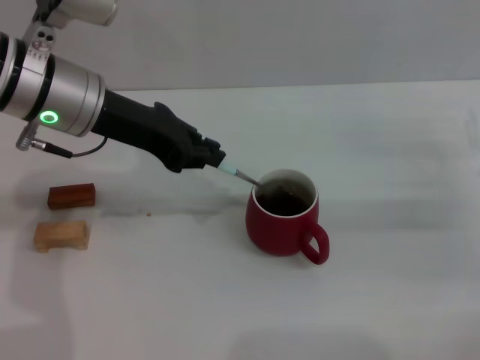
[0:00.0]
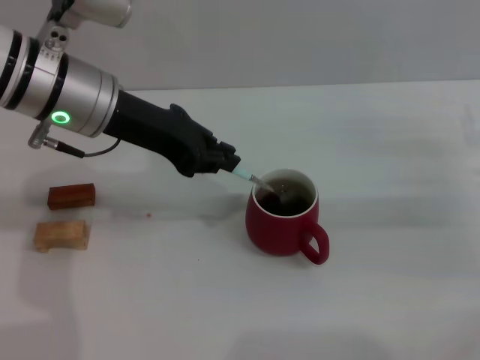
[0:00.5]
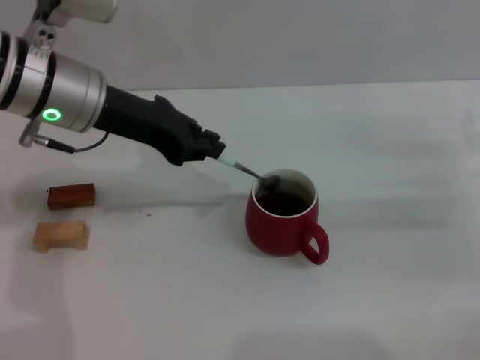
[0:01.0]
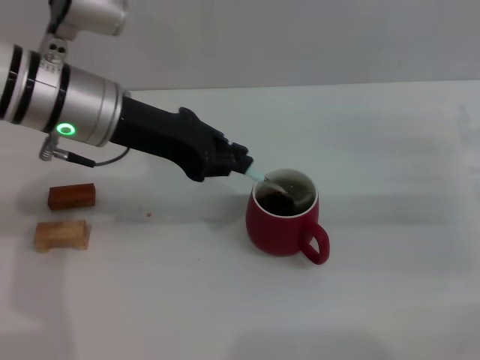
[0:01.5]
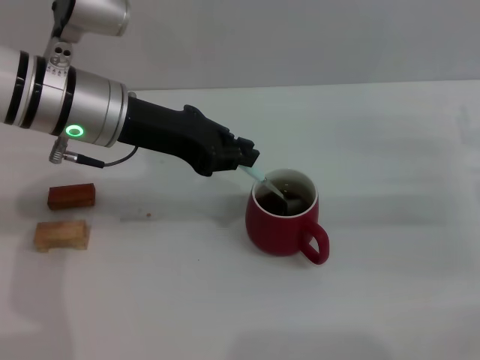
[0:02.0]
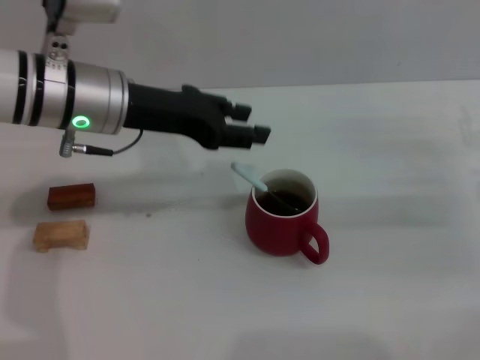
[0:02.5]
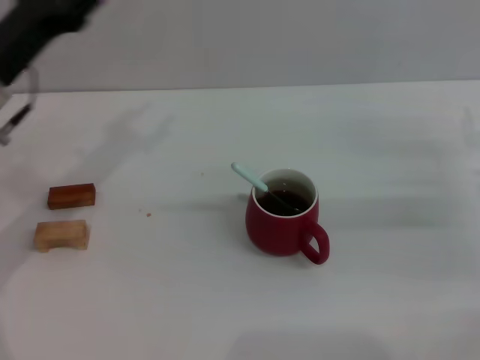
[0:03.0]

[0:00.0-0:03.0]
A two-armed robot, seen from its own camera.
Task of the whole recording: Move the red cup to the center, lift the blue spoon, stir it three times in the cup, and put the spoon into the cup.
Step, 0:00.0 to 0:02.5: Stir the coffee in the cup with the left gripper.
0:00.0 to 0:01.5: The grippers move only a little.
0:01.5 to 0:03.0: The left gripper is displaced to the left by about 10 cm, and opens its fingers.
